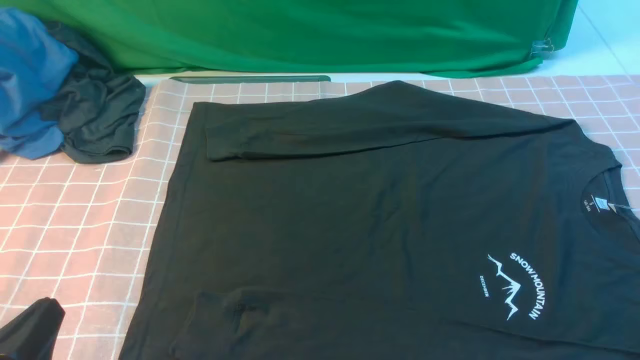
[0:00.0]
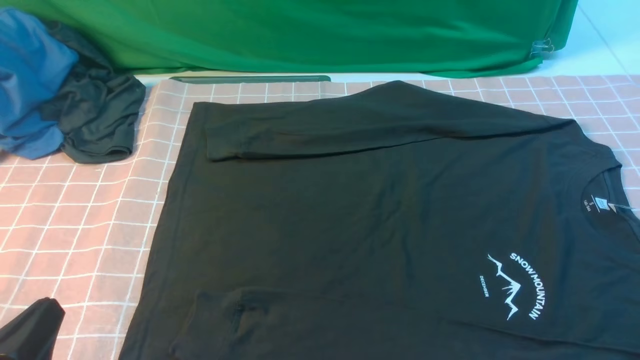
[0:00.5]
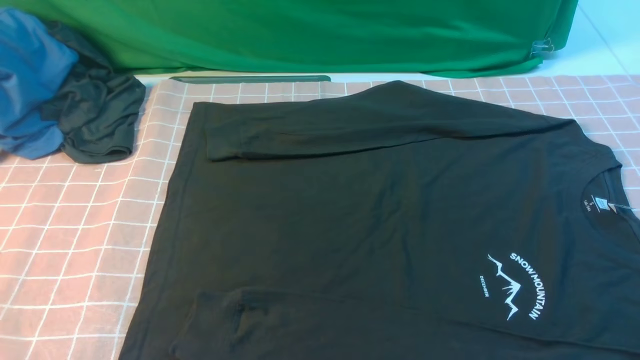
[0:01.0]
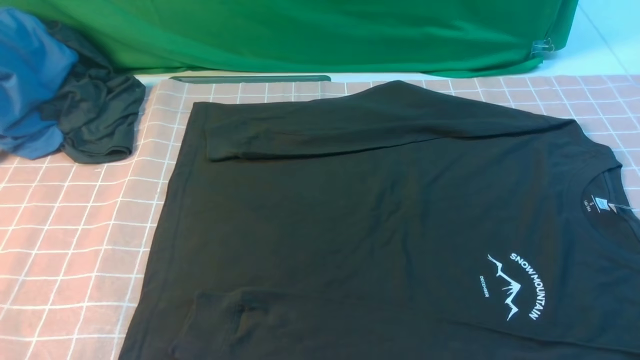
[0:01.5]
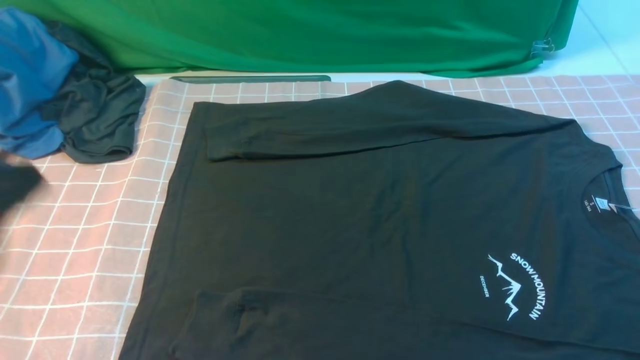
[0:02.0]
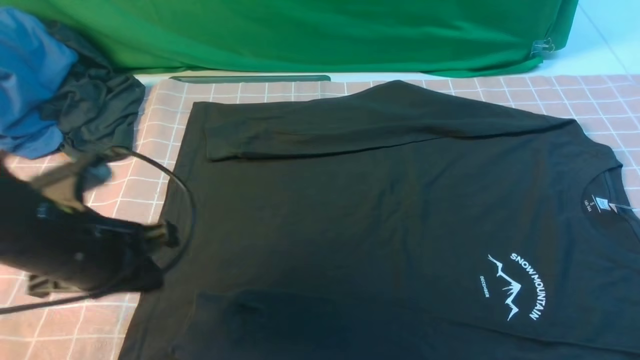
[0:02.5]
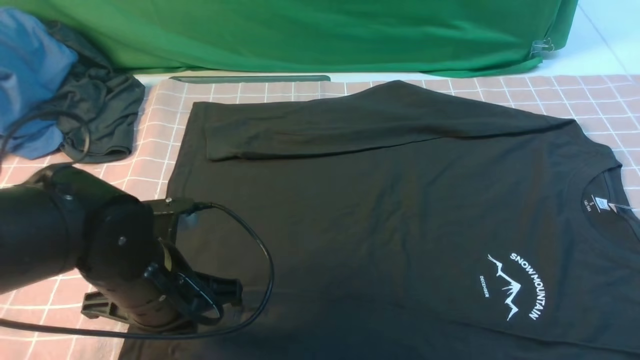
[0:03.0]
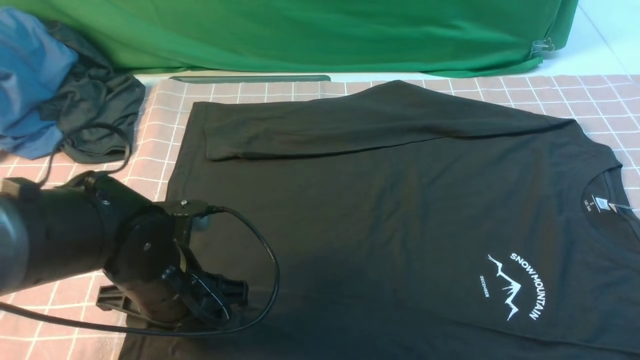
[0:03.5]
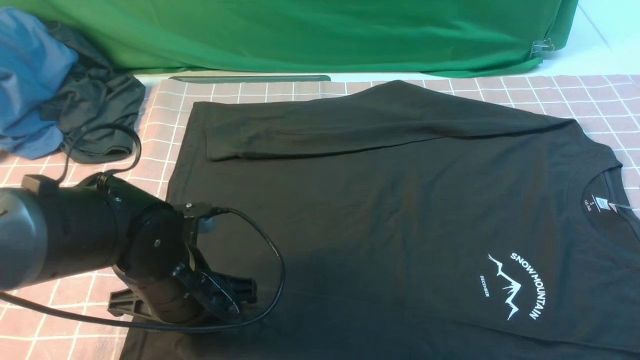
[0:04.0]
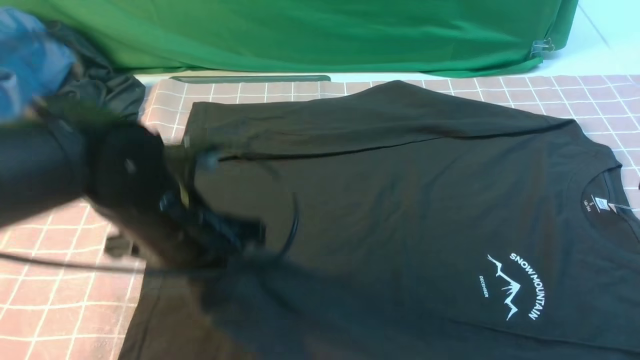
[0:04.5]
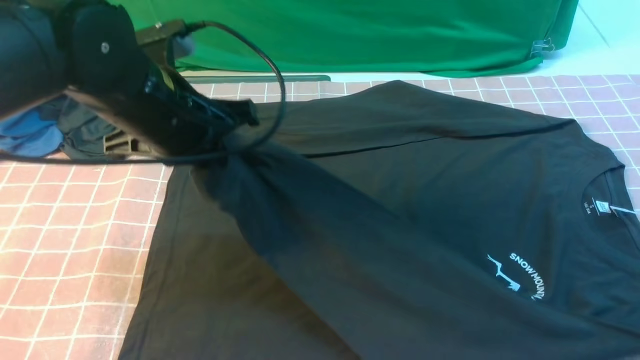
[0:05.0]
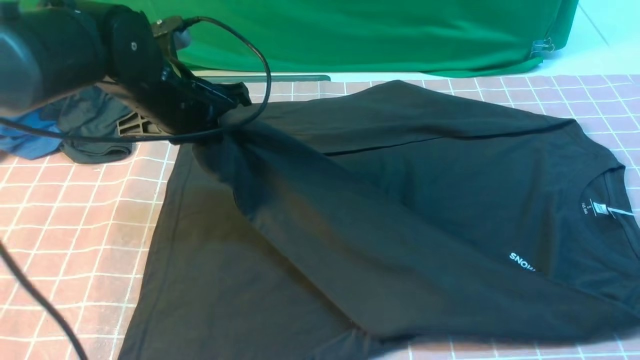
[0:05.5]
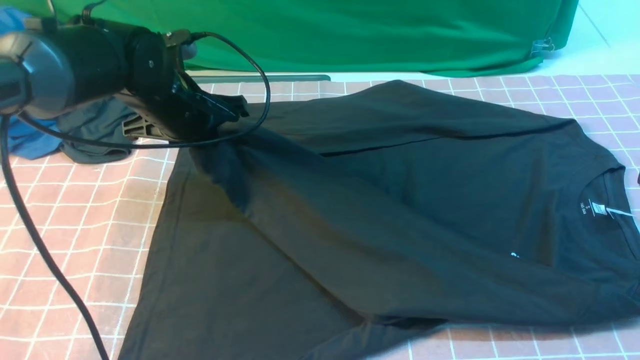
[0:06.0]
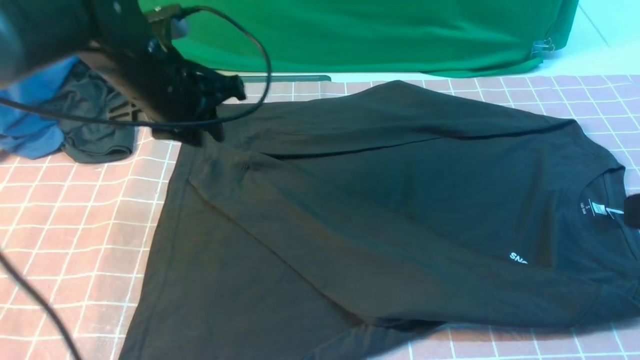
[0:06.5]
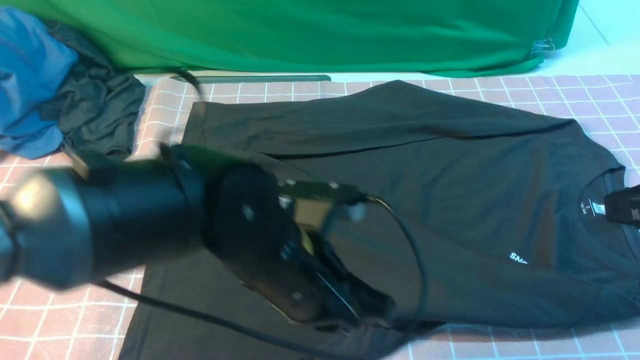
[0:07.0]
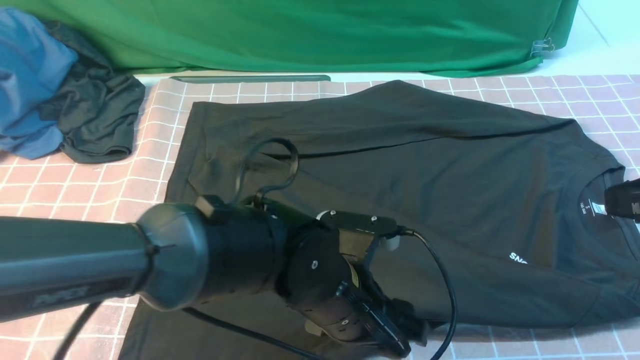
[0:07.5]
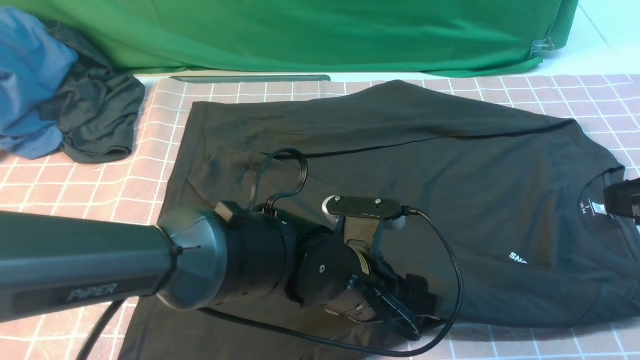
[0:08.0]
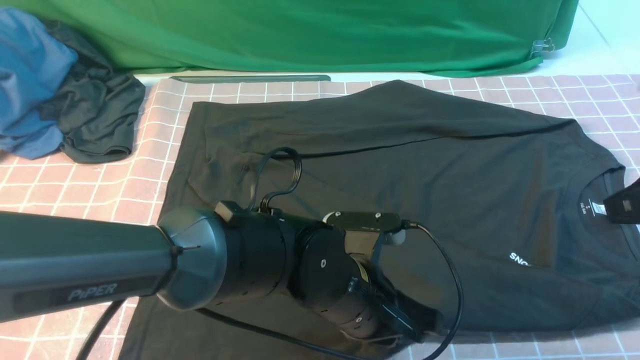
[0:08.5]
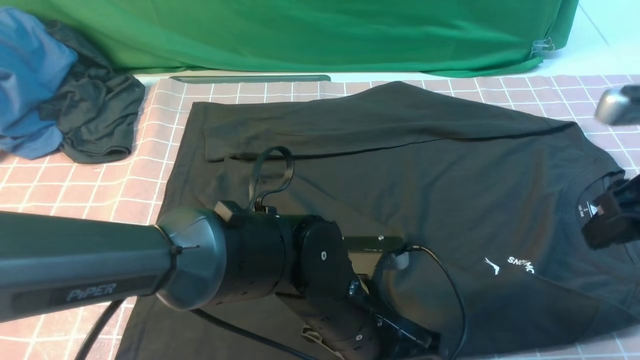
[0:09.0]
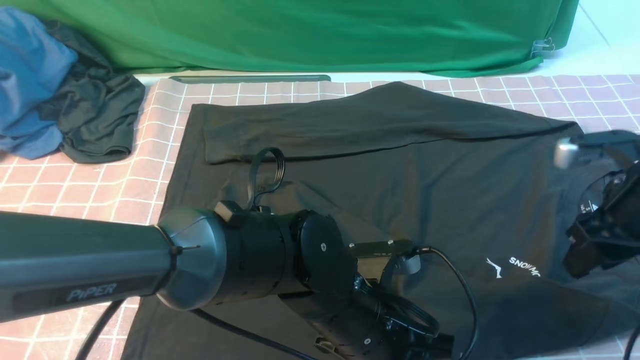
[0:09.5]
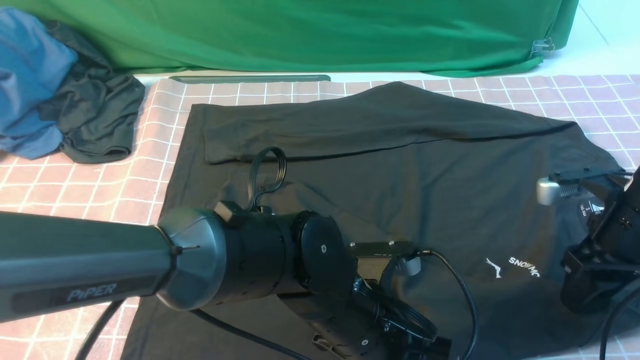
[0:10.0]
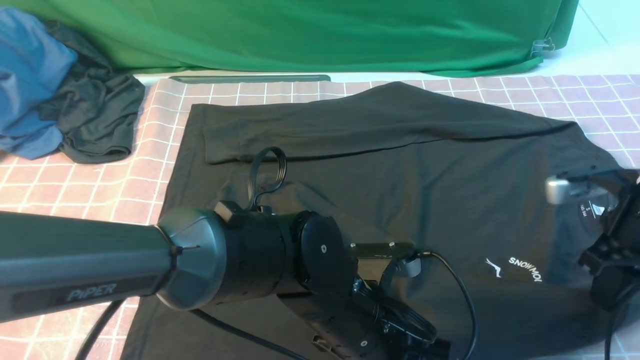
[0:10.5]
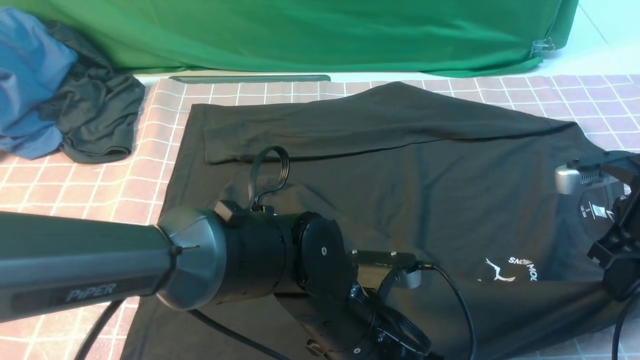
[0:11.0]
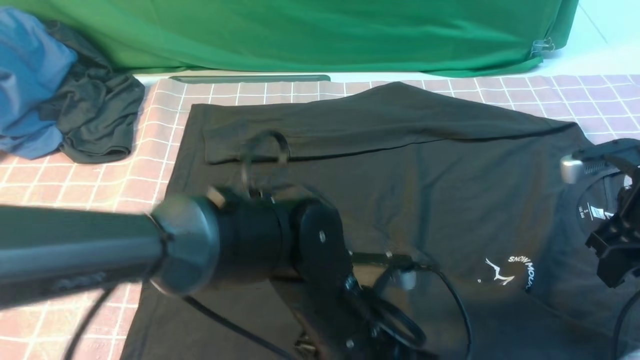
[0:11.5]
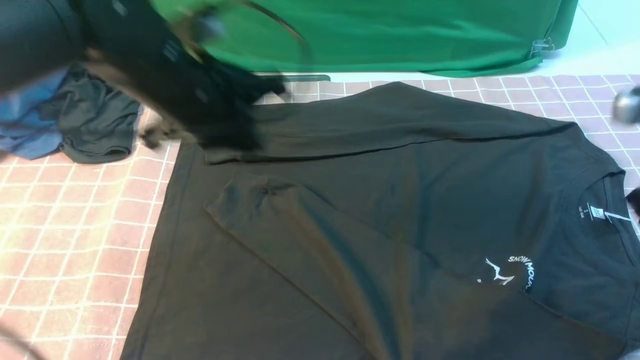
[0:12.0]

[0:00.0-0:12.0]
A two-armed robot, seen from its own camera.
Step, 0:00.0 to 0:04.0: use the left arm to clamp the cuff closest to it.
Step, 0:05.0 to 0:06.0: use the left arm to drag and place the cuff at the centered position on the left edge of the fabric.
Step, 0:07.0 to 0:08.5: use the left arm to clamp the cuff farthest from it.
0:00.0 to 0:02.0: The left gripper heads upward and forward, covering roughly 15 cm.
0:02.0 to 0:04.0: The left gripper goes roughly 25 cm downward, forward and to the right, and opens up, while the right gripper heads forward and upward, covering approximately 10 cm.
0:04.0 to 0:06.0: The left gripper shifts roughly 20 cm forward and upward.
0:06.0 to 0:08.0: The left gripper heads to the right and backward, covering roughly 25 cm, and opens, while the right gripper travels forward by approximately 5 cm.
0:08.0 to 0:10.0: The left gripper closes its fingers. Meanwhile the right gripper heads downward and forward, covering some 20 cm, and opens up.
0:10.0 to 0:12.0: The right gripper moves upward, approximately 10 cm, and closes up; the left gripper moves to the left, forward and upward, about 25 cm, and opens, then closes again.

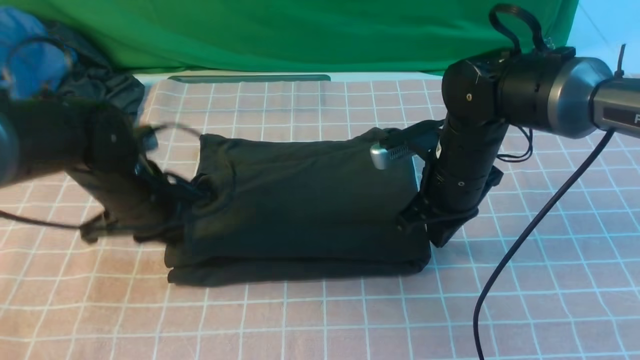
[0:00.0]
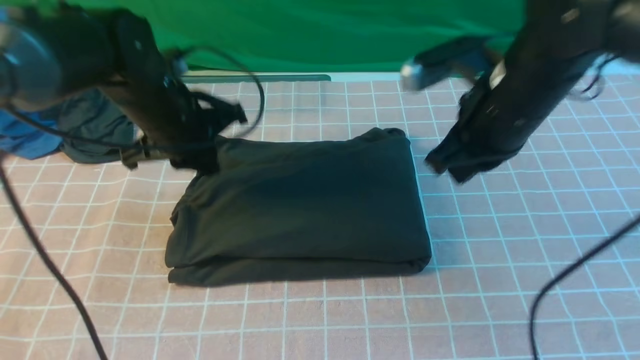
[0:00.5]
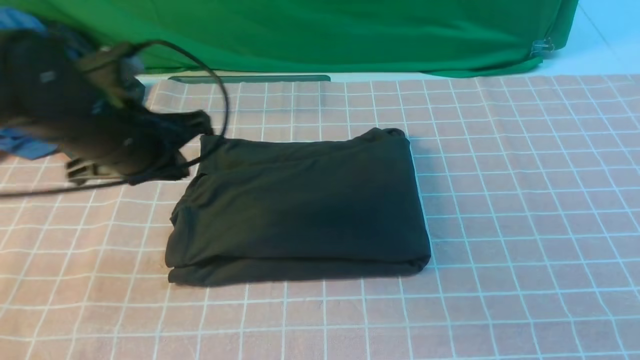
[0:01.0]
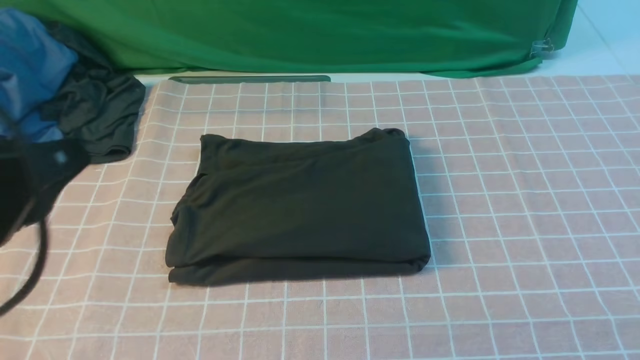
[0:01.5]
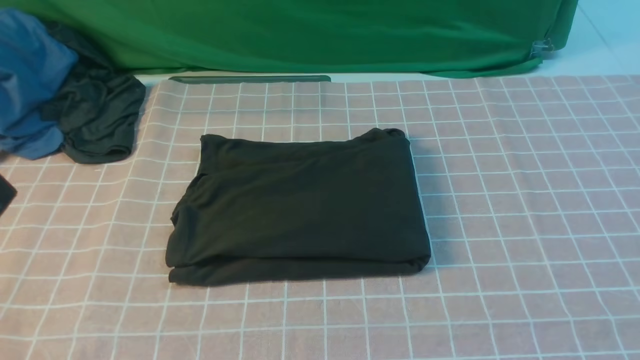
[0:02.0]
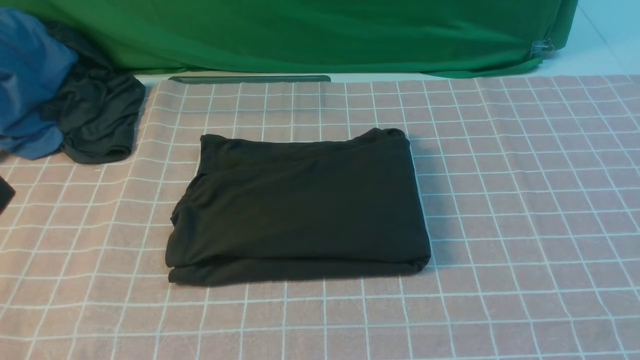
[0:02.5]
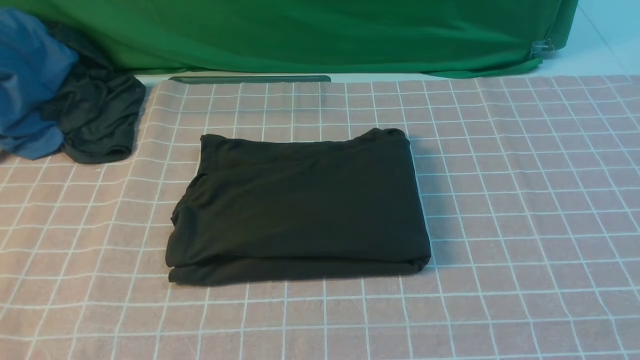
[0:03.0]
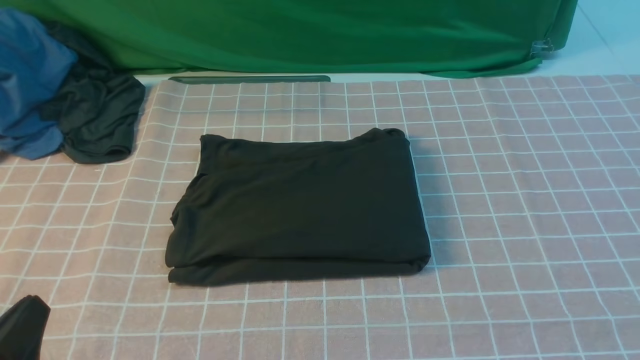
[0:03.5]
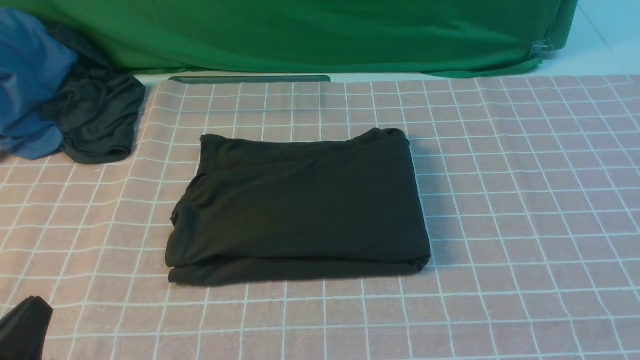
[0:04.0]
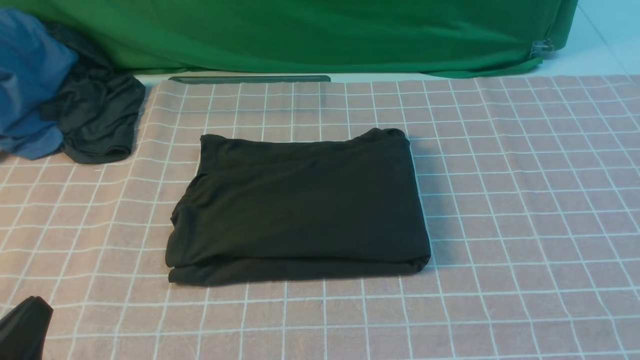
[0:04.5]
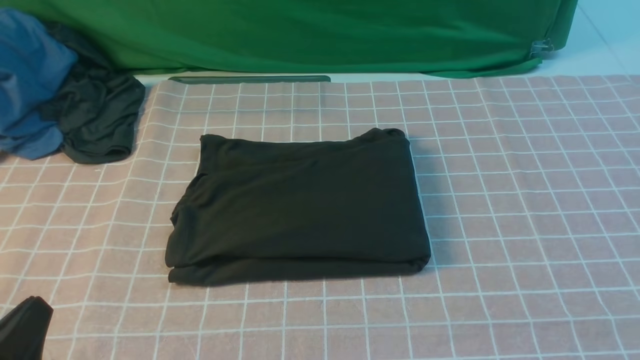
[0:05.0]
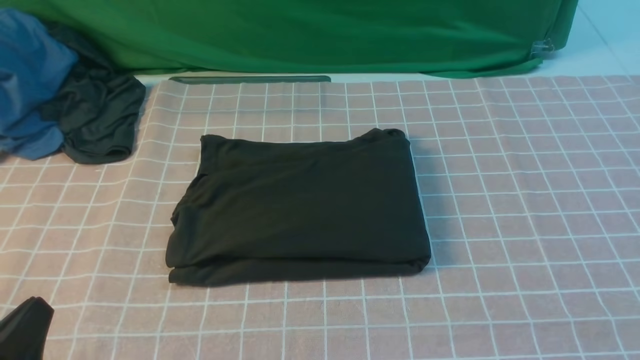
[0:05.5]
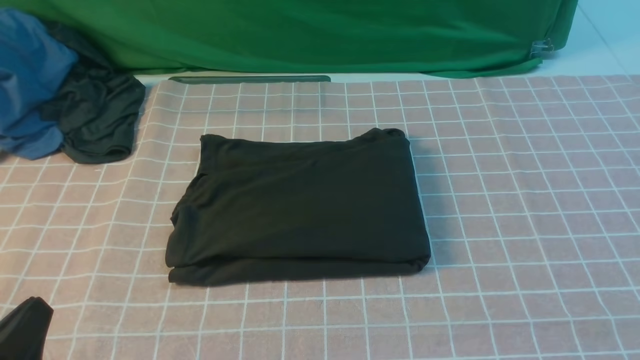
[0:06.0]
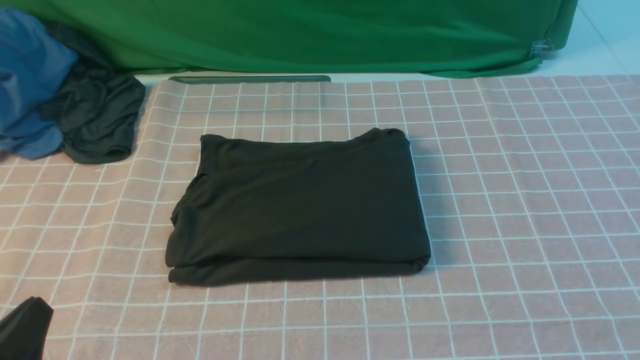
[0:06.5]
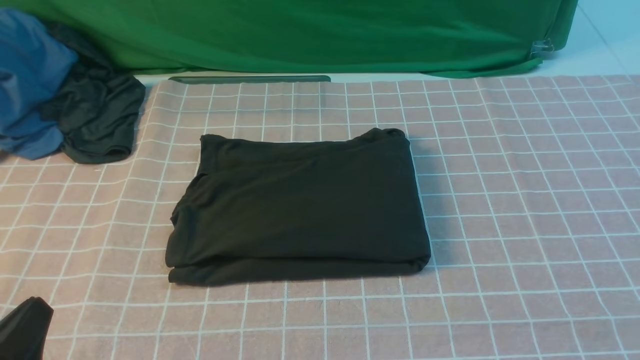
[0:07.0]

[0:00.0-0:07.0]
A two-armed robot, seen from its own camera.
0:00.0 to 0:02.0: The left gripper heads backward and upward, covering about 30 cm, while the right gripper heads backward, upward and to the right, covering roughly 50 cm.
0:02.0 to 0:03.5: The left gripper shifts some 15 cm downward.
